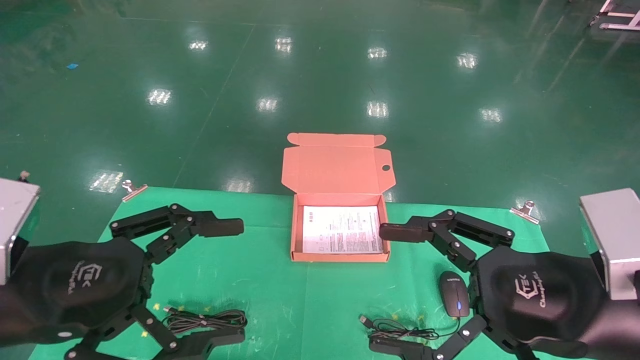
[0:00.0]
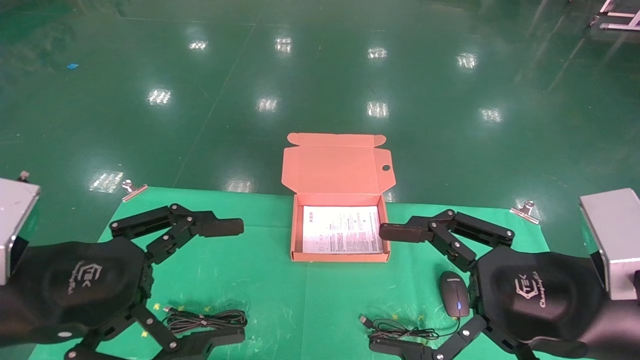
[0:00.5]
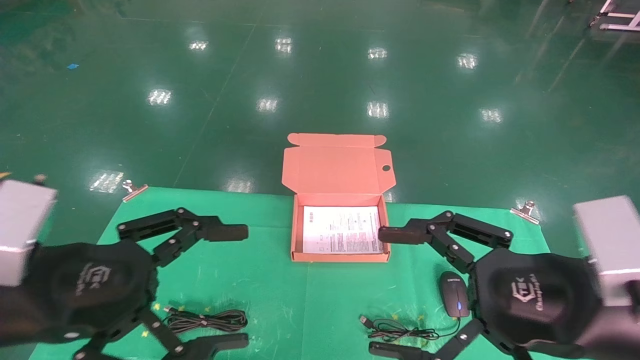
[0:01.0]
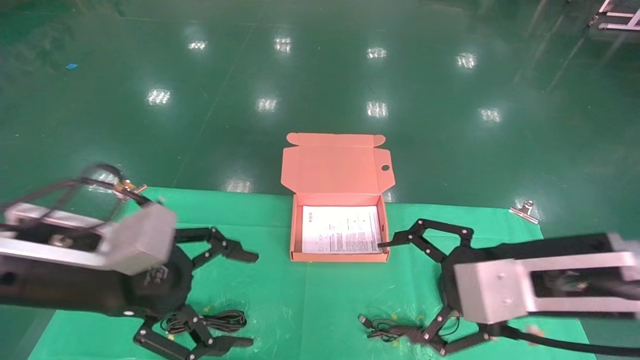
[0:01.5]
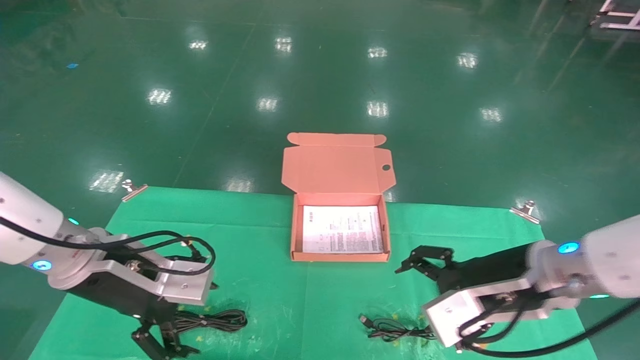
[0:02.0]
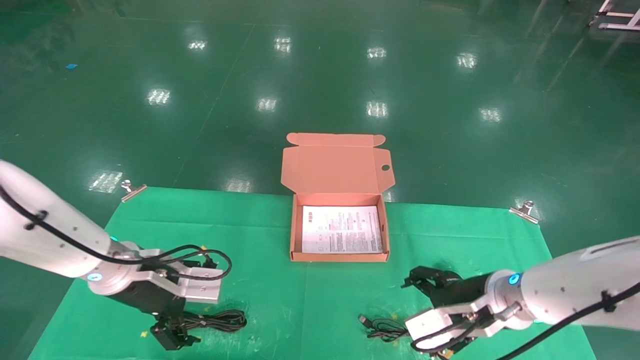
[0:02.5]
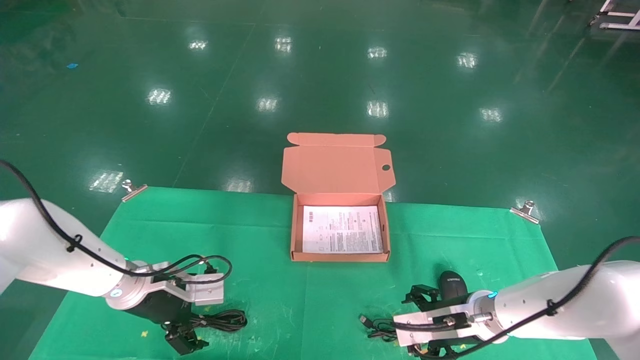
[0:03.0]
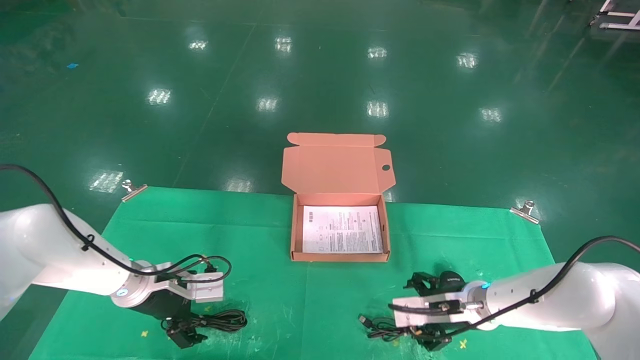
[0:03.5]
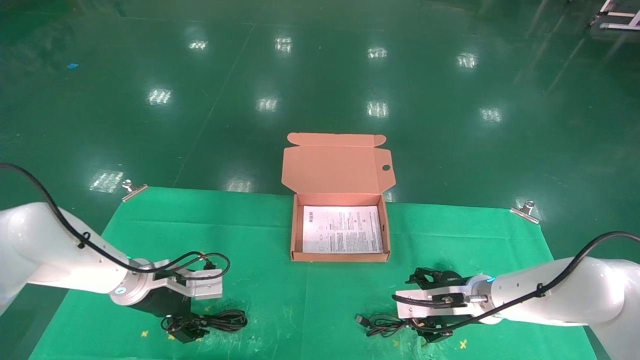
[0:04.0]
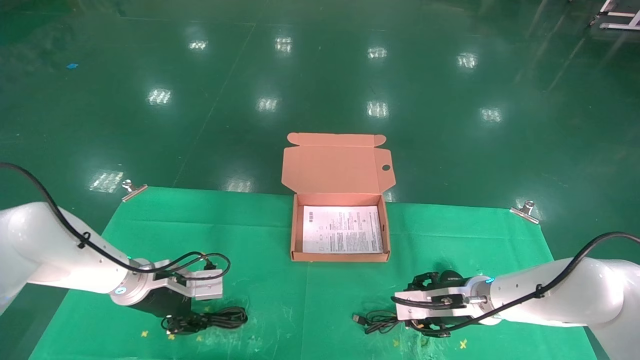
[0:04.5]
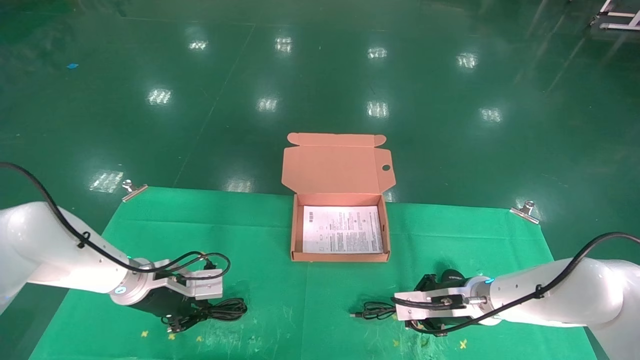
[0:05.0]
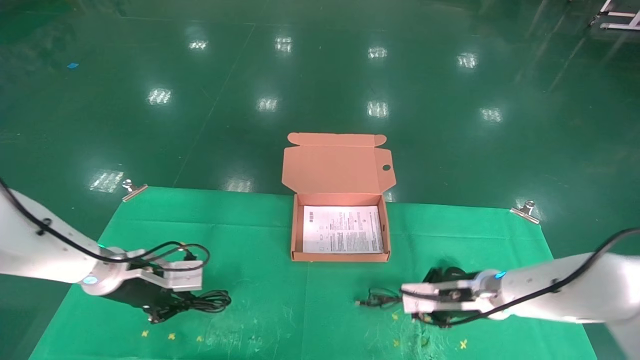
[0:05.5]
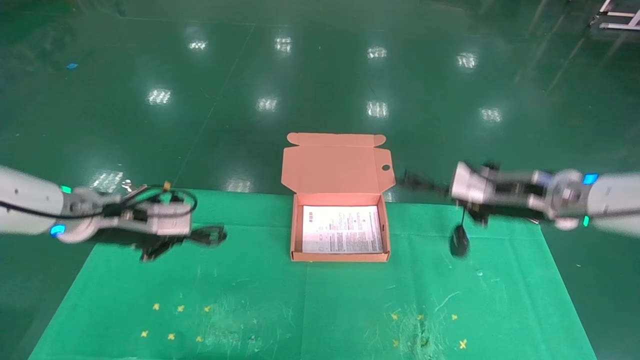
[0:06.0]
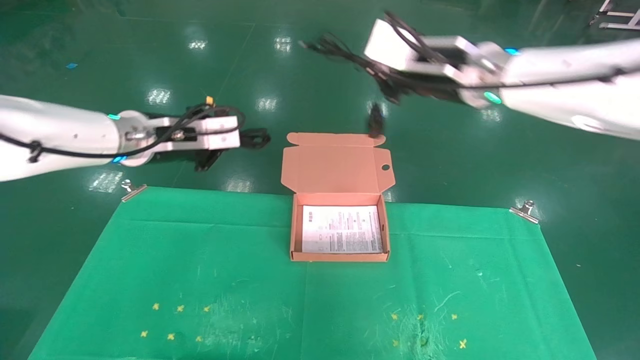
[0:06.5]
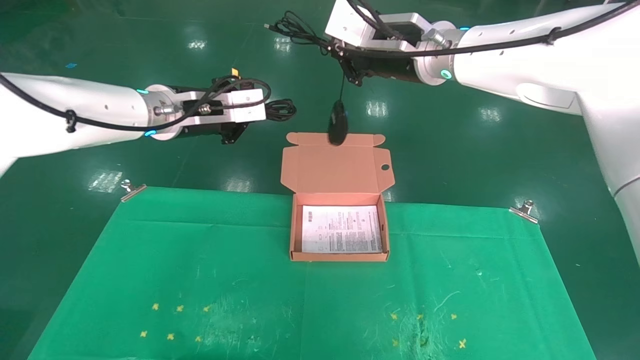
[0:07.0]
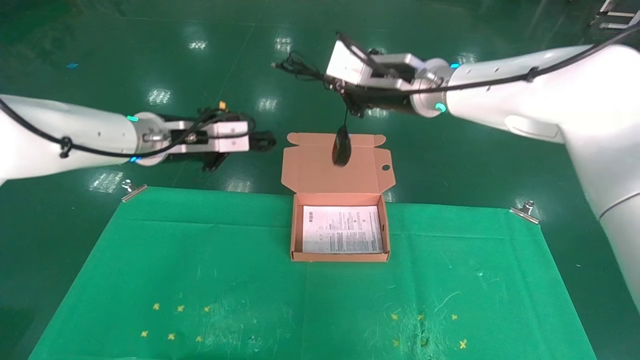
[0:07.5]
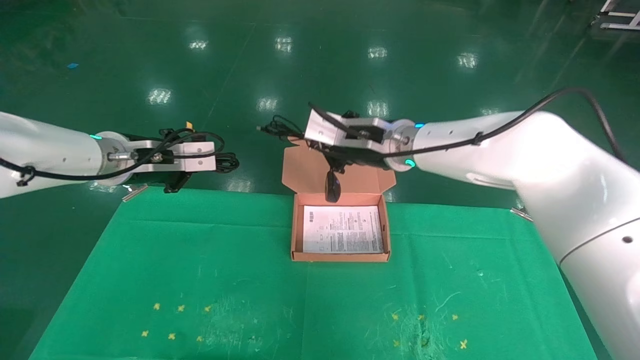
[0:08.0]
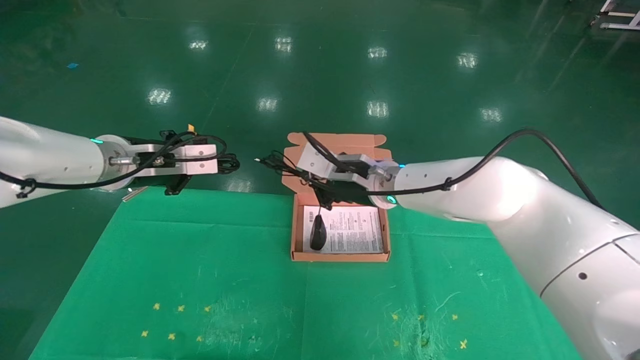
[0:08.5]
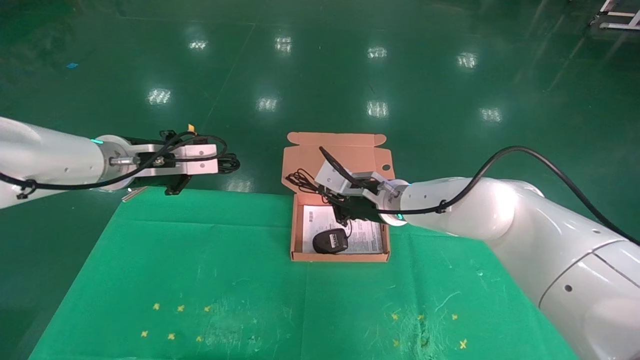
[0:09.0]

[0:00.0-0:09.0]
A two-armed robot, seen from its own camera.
Task of the whole recording: grasp data cable left put into box grasp mouse right put into box.
Step, 0:01.0 to 0:05.0: Grab and pick up both the mouse and power cord from the accessory packaging area at the same time.
0:00.0 to 0:02.0: Both grippers travel together forward, approximately 10 cm.
0:02.0 to 0:04.5: The right gripper is displaced downward and forward by approximately 15 cm, and closes. Meanwhile the left gripper goes roughly 15 cm forward and downward, and closes.
0:04.5 to 0:07.0: The two grippers go approximately 30 cm upward. The right gripper closes, while the left gripper closes its fingers.
0:07.0 to 0:09.0: The right gripper shifts about 20 cm downward. Meanwhile the left gripper goes some 10 cm downward and to the left.

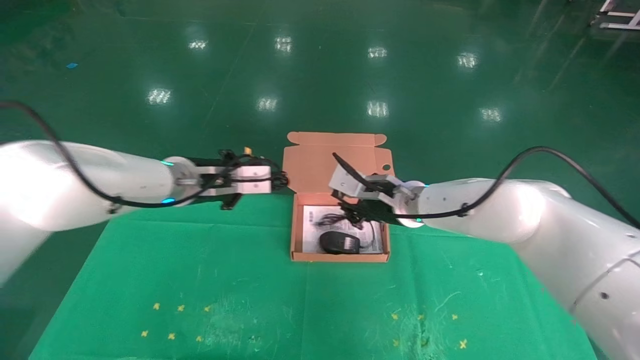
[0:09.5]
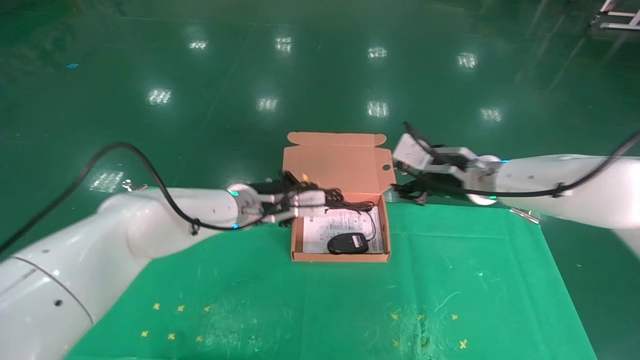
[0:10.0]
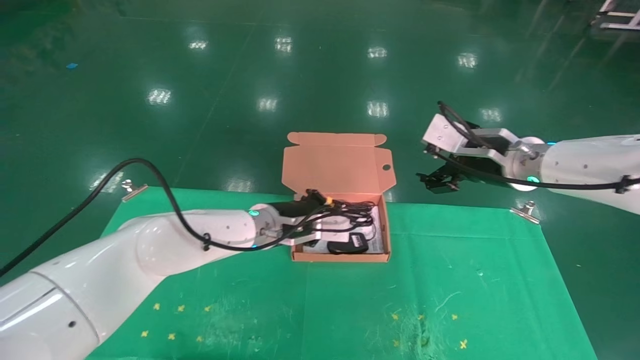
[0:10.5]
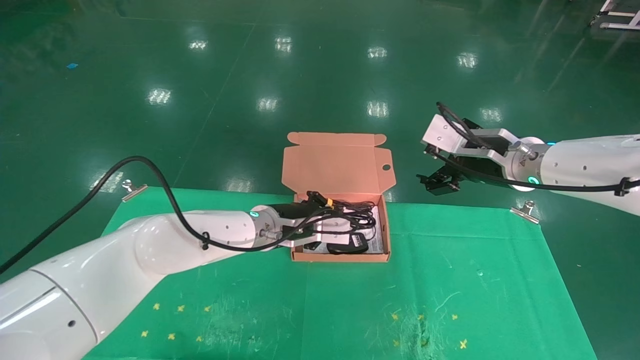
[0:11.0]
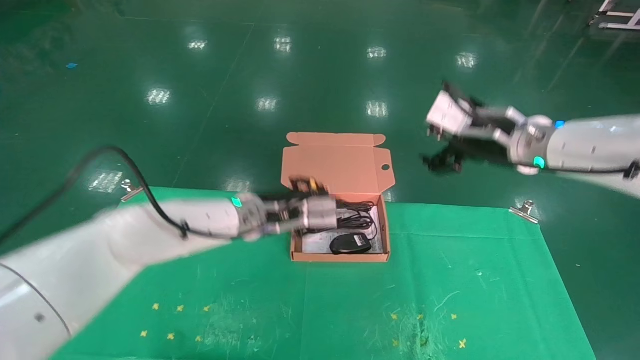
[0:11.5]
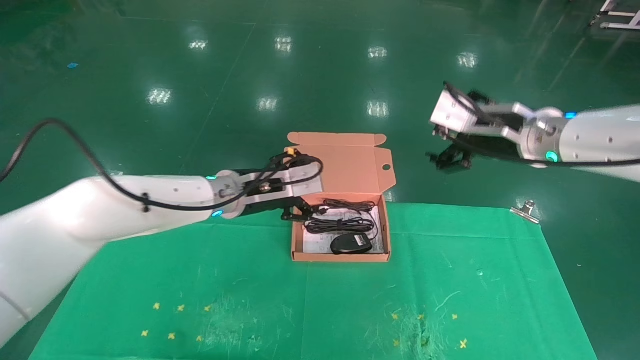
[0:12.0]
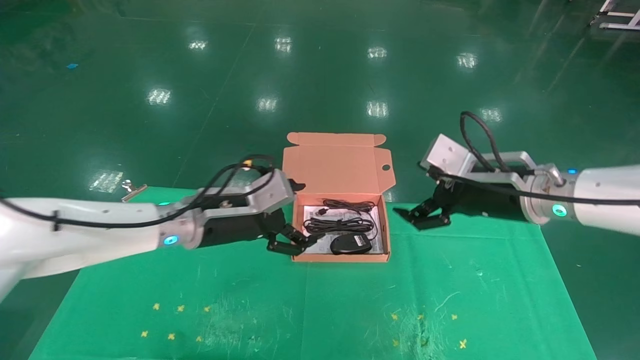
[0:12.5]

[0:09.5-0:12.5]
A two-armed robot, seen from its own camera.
Task of the whole recording: grasp data cable left put into box grasp mouse right put into box.
0:09.5 to 0:11.0: The left gripper heads to the right and downward, covering approximately 15 cm. Meanwhile the right gripper travels to the right, upward and backward by about 15 cm, and opens its fingers.
0:11.0 to 0:12.5: The left gripper moves to the left and backward, roughly 10 cm, and opens its fingers; the right gripper shifts by some 5 cm.
